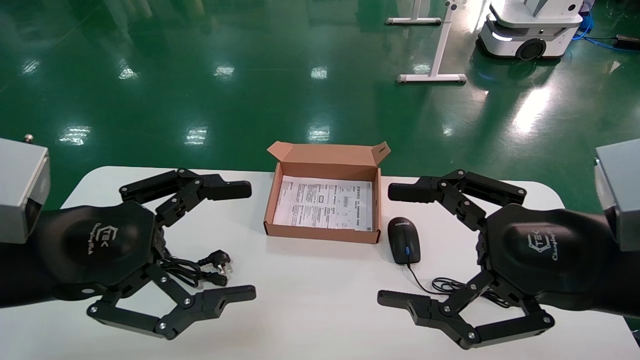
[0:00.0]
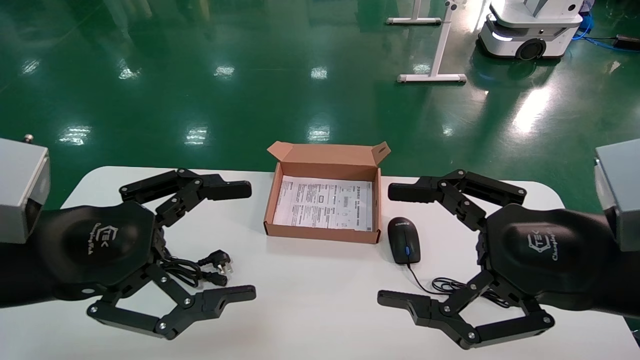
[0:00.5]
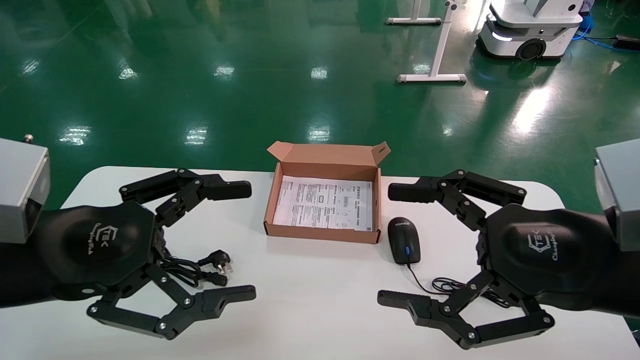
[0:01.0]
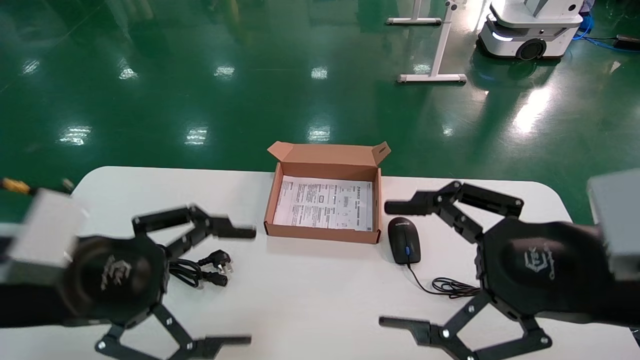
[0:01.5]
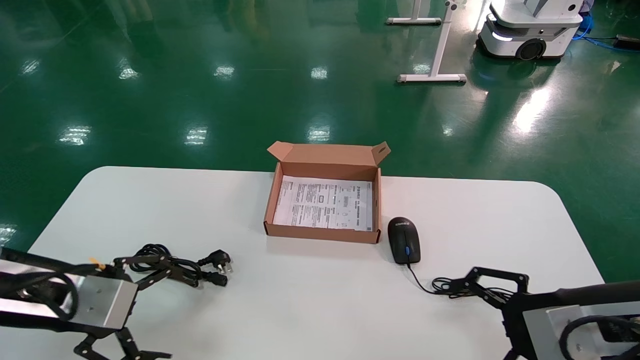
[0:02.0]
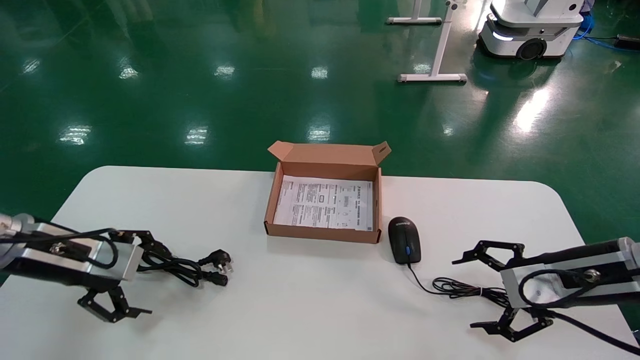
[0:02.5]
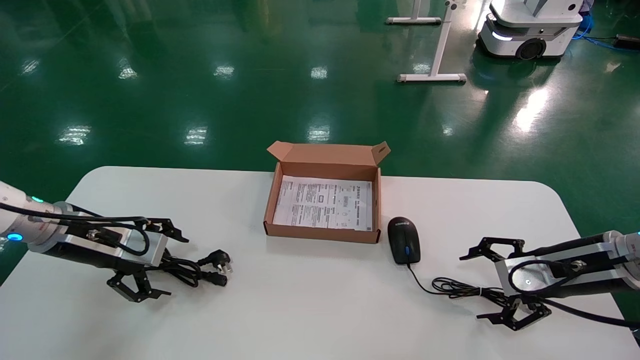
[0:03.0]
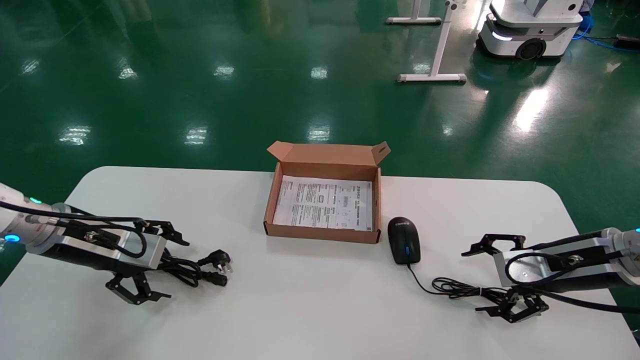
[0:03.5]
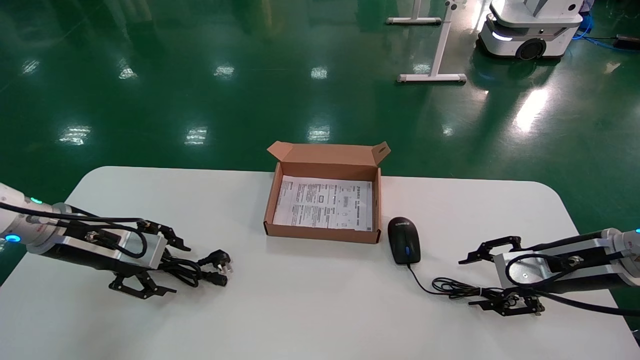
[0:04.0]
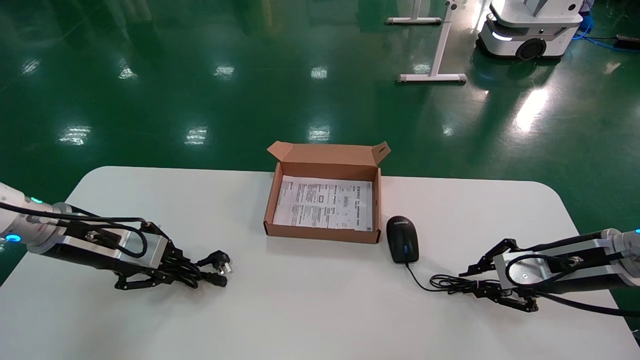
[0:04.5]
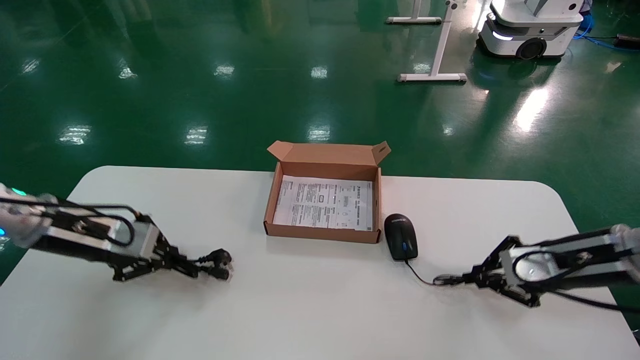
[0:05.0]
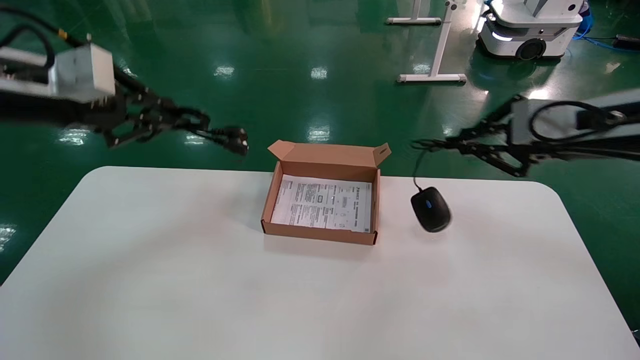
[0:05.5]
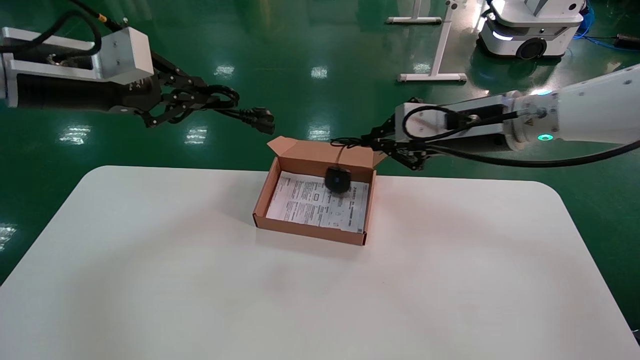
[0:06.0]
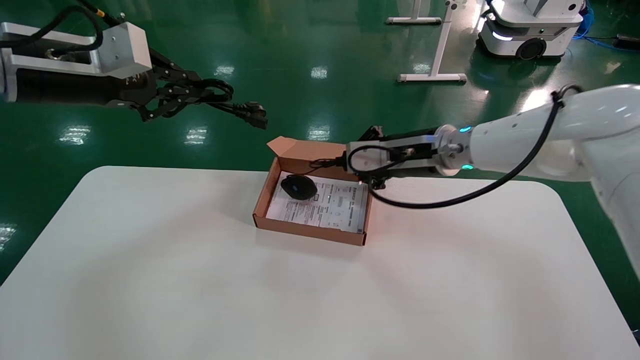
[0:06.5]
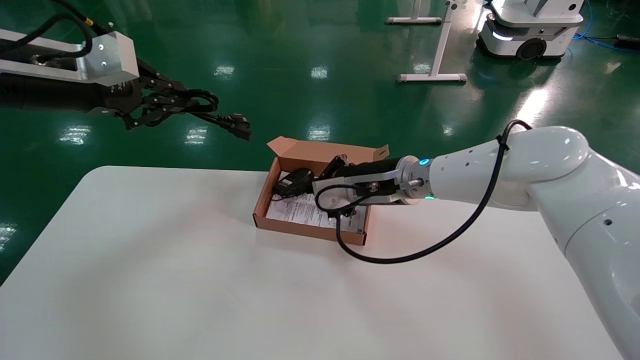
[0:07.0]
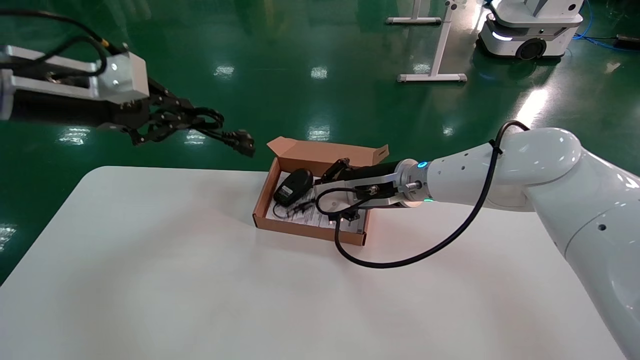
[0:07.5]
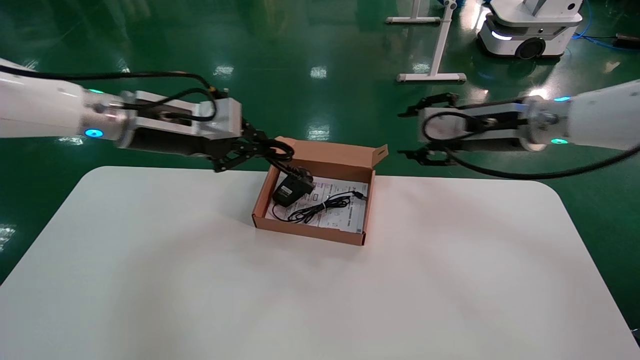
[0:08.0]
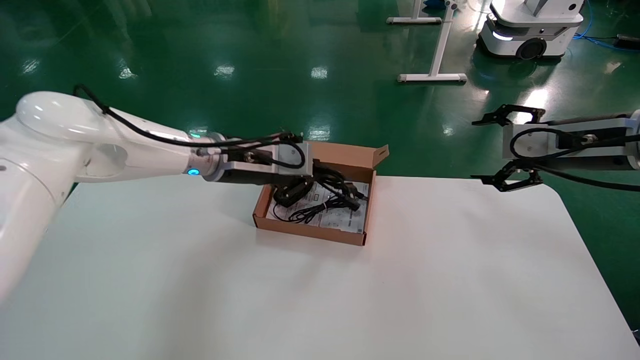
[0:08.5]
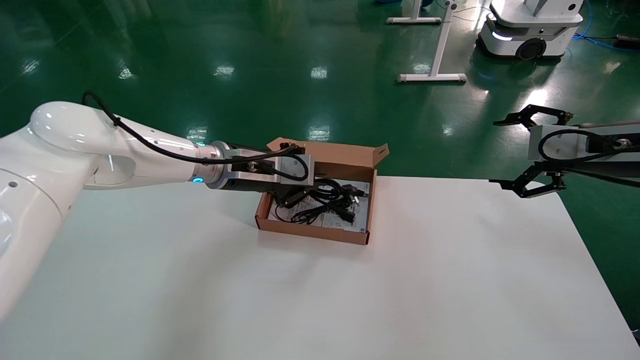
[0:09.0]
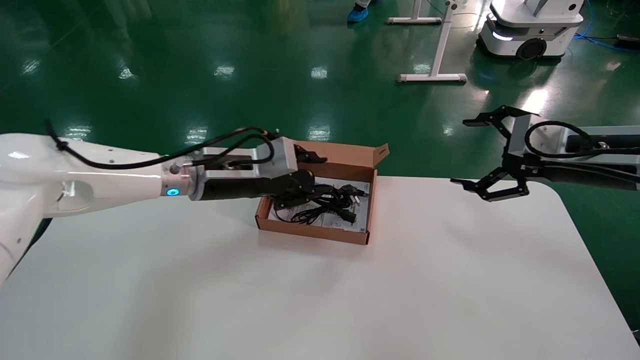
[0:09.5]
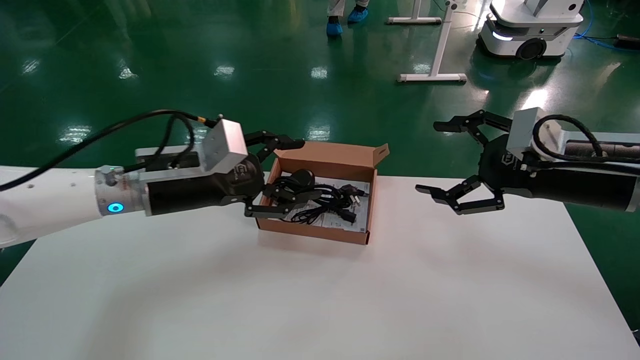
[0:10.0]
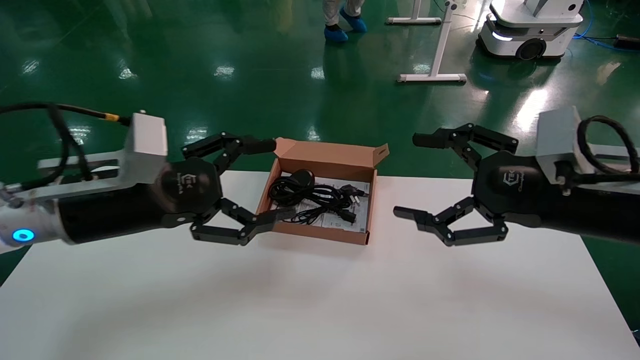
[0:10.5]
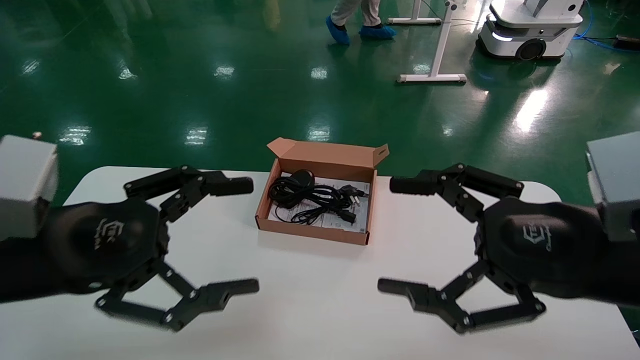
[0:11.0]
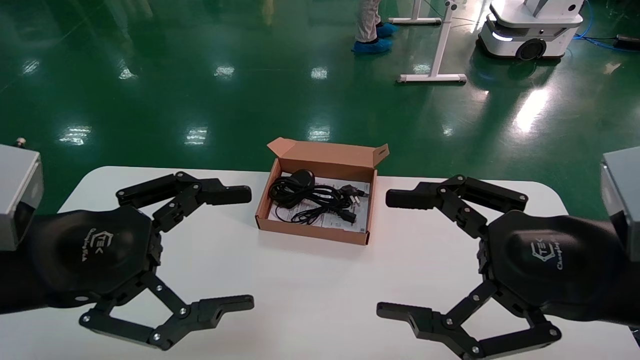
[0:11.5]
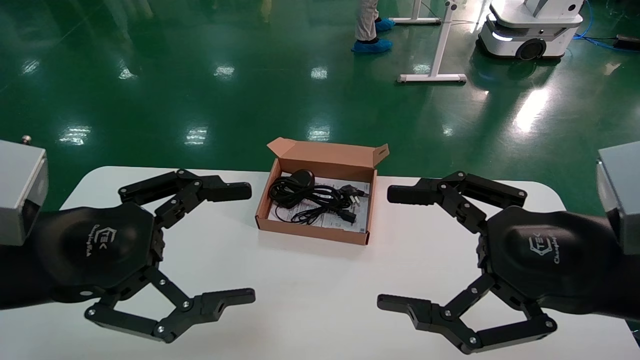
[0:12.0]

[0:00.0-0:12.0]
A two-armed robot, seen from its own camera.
Step, 0:01.5 to 0:04.5: Grab and lift both the mouse and power cord from the accessory packaging area at the same time.
Step, 0:05.0 to 0:09.5: Place the mouse and power cord into the box.
0:00.0 to 0:02.0: The right gripper is displaced downward, forward and to the right by some 10 cm, while the left gripper shifts approximately 10 cm forward, downward and to the left.
0:02.0 to 0:04.0: Both grippers travel together forward, about 10 cm.
0:04.0 to 0:06.0: The right gripper shifts about 20 cm upward and to the left, and closes; the left gripper moves upward, roughly 20 cm, and closes its fingers.
0:06.0 to 0:08.0: The right gripper travels to the left and back again, some 10 cm each way, and opens up. The left gripper is displaced to the right, downward and forward by roughly 15 cm.
0:08.0 to 0:10.0: The right gripper shifts some 10 cm backward and to the right, and opens up. Meanwhile the left gripper goes roughly 10 cm downward, and opens.
0:10.0 to 0:12.0: Both grippers move backward, roughly 15 cm.

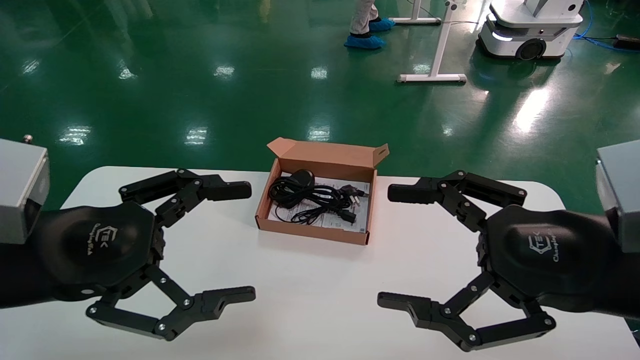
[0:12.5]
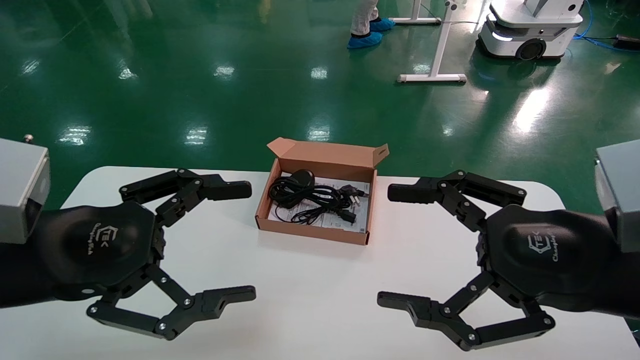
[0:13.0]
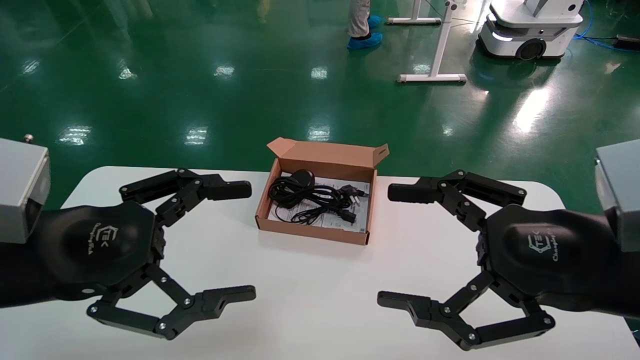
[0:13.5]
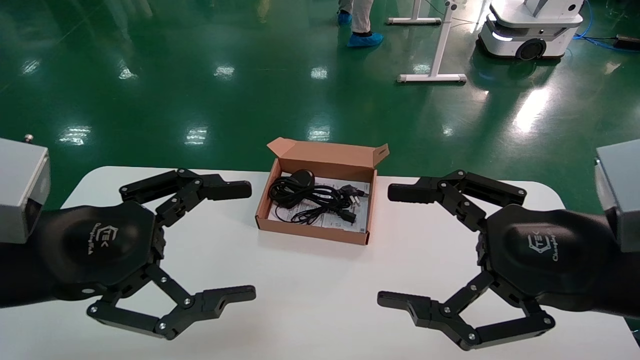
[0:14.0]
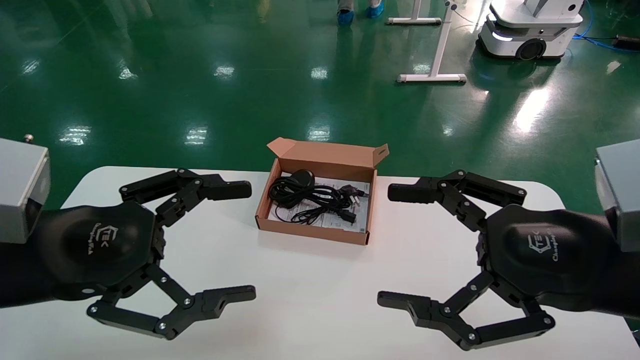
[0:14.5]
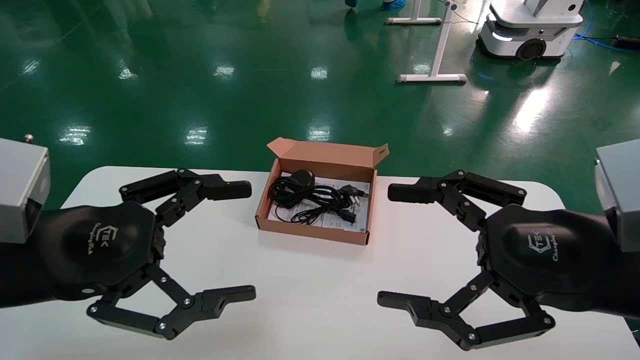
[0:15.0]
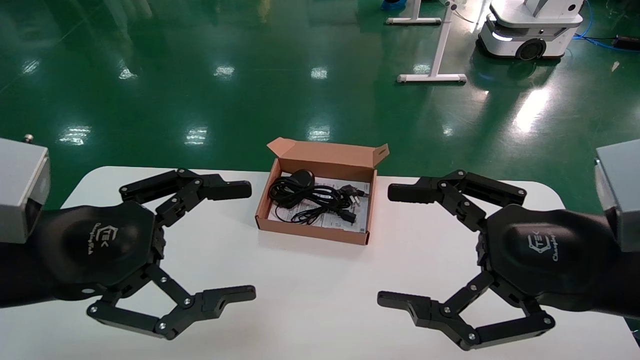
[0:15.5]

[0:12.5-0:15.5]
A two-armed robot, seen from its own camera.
0:12.5 to 0:15.5: Both grippers stay put.
